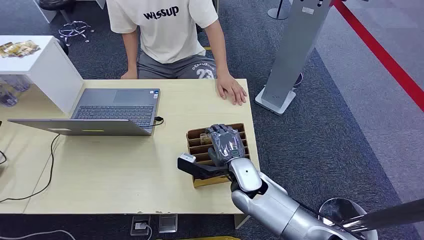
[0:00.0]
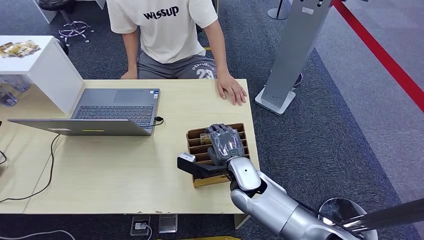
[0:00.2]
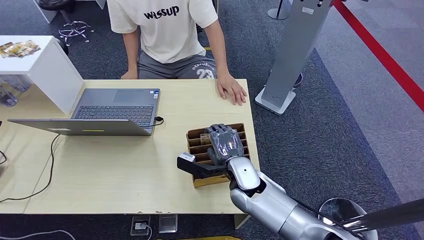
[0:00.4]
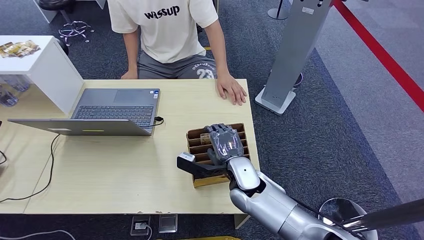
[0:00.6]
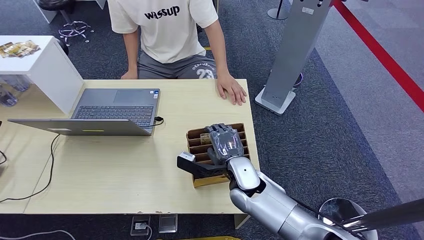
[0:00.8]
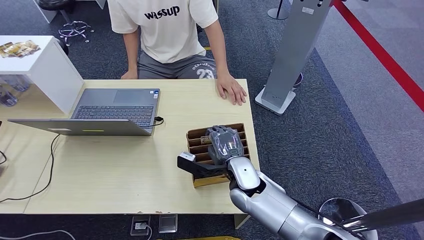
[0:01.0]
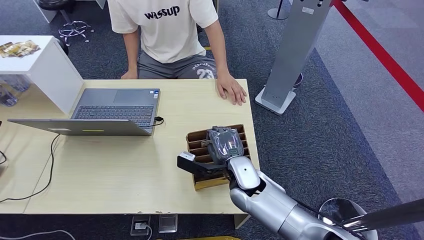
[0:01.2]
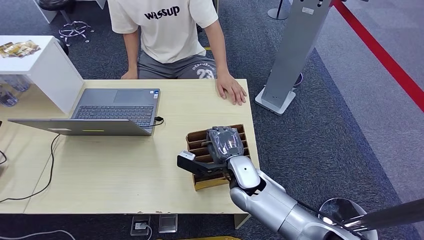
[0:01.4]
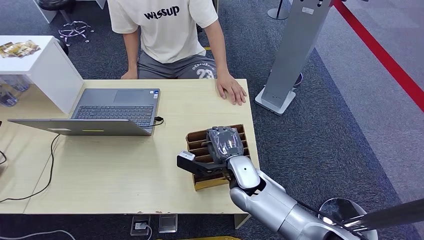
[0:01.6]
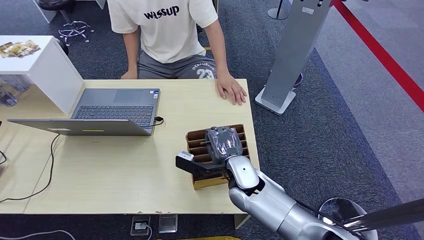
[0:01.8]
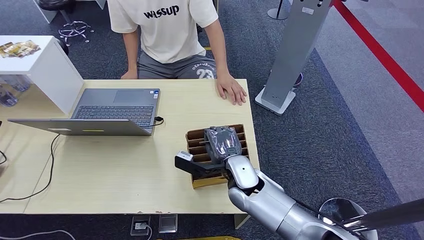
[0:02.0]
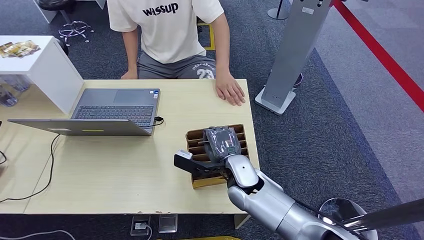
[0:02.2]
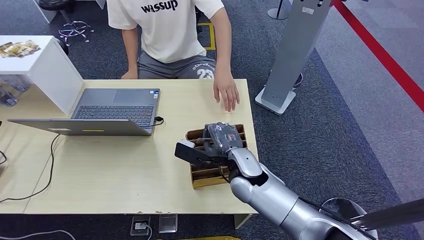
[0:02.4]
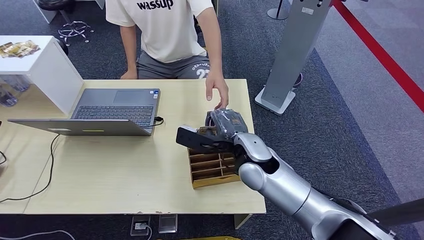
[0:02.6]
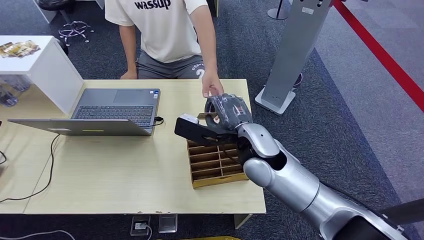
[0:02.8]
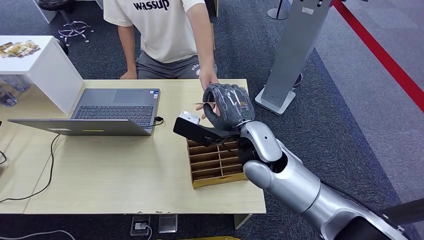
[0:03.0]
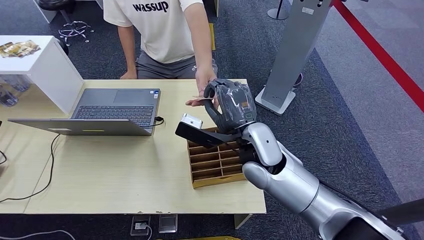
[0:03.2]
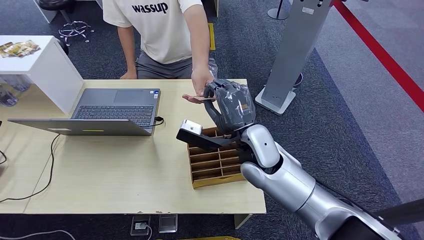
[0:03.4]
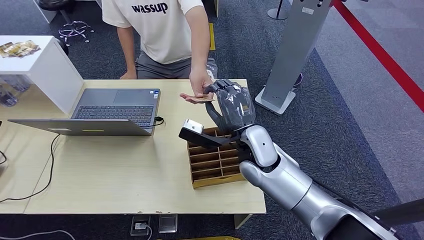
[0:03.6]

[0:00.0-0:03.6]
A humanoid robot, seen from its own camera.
Step, 0:00.0 to 0:02.2: Pick up the key card from the card box.
Step, 0:03.0 to 0:03.6: Hand the key card to the target.
0:01.8 to 0:03.6: The right hand is displaced upward by approximately 10 cm.
